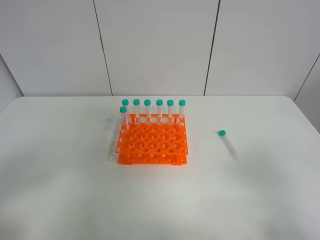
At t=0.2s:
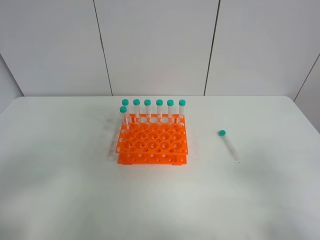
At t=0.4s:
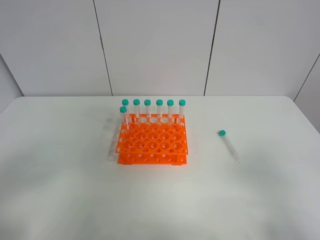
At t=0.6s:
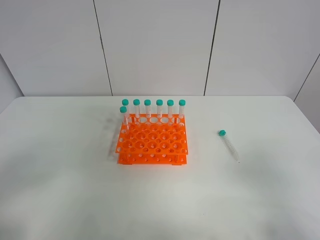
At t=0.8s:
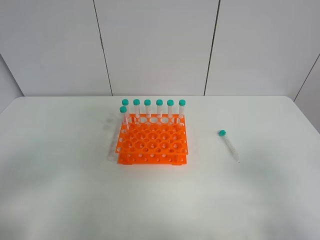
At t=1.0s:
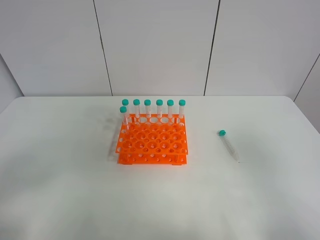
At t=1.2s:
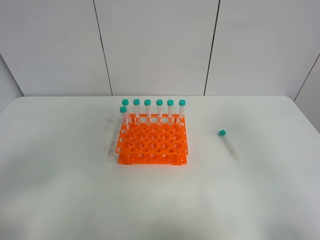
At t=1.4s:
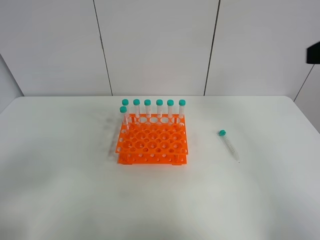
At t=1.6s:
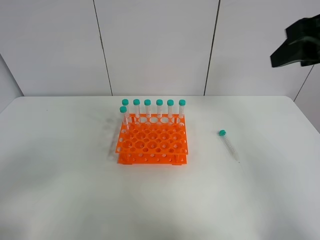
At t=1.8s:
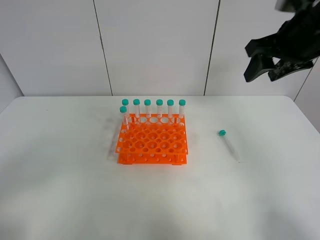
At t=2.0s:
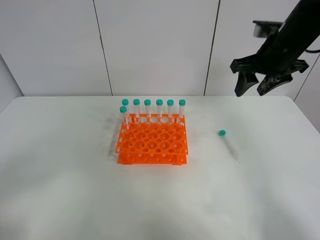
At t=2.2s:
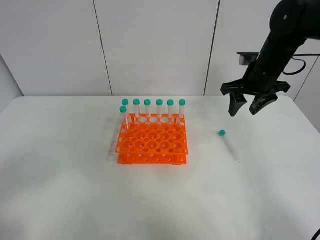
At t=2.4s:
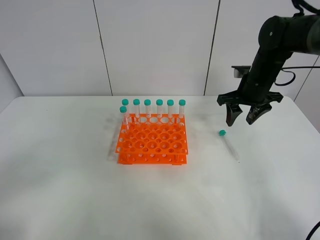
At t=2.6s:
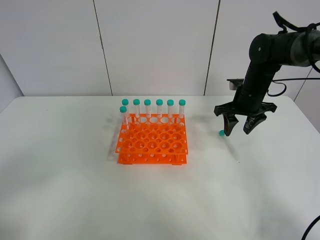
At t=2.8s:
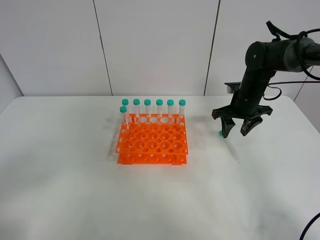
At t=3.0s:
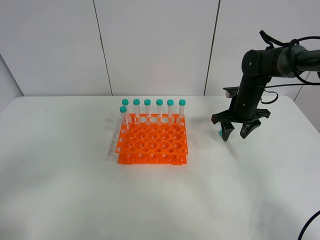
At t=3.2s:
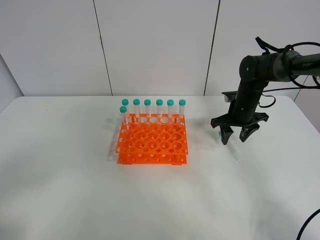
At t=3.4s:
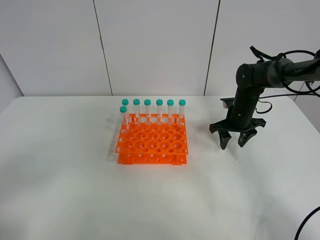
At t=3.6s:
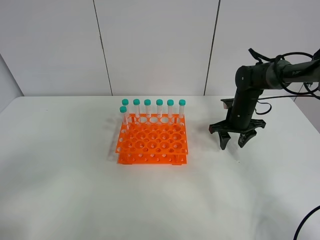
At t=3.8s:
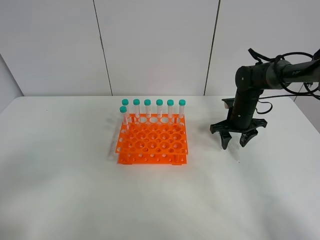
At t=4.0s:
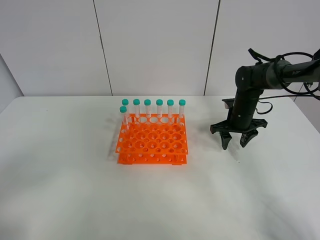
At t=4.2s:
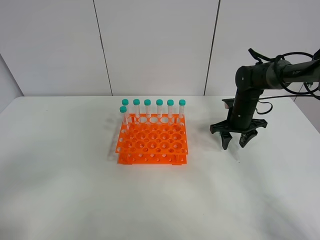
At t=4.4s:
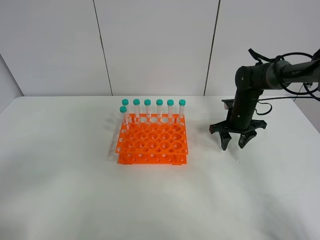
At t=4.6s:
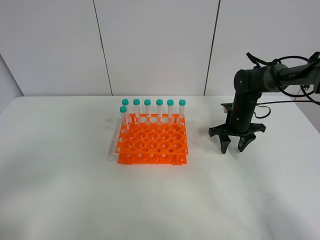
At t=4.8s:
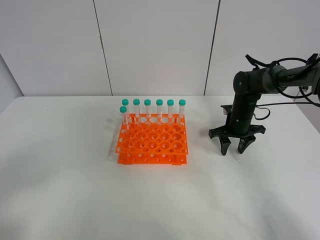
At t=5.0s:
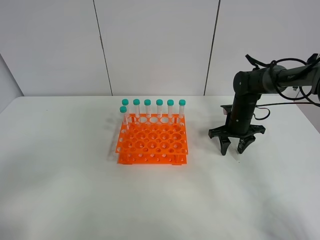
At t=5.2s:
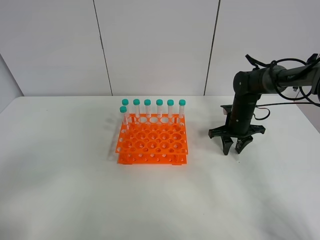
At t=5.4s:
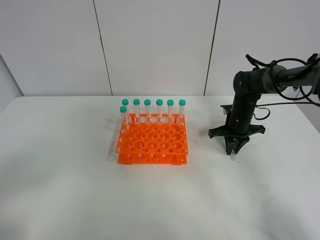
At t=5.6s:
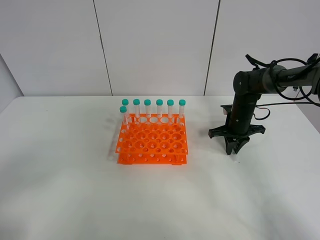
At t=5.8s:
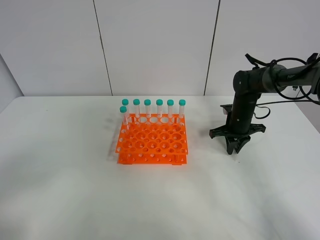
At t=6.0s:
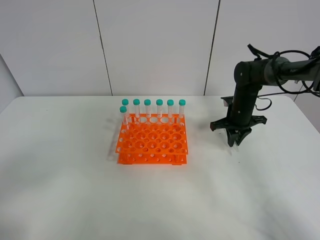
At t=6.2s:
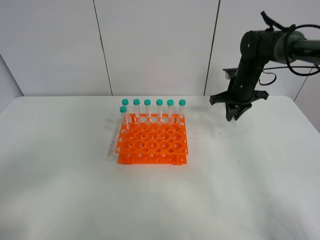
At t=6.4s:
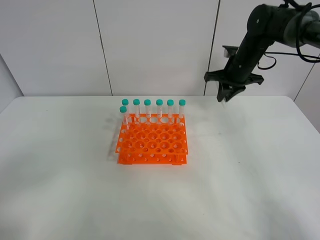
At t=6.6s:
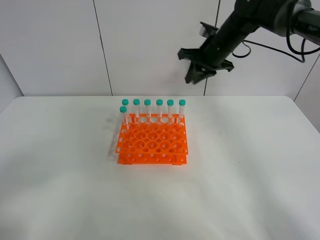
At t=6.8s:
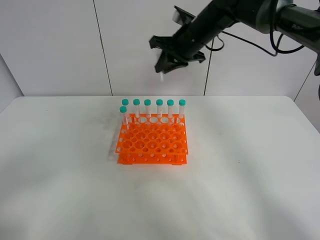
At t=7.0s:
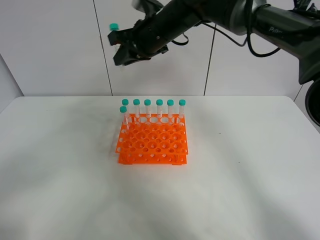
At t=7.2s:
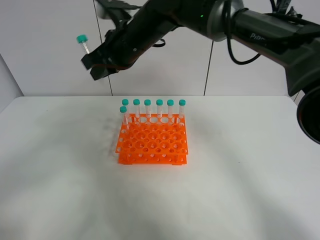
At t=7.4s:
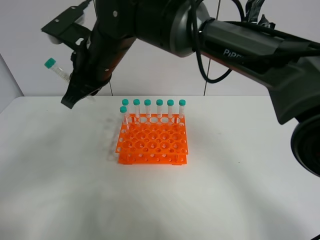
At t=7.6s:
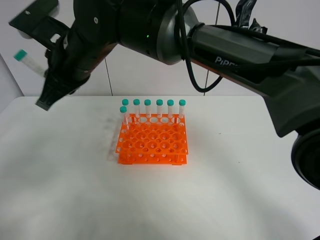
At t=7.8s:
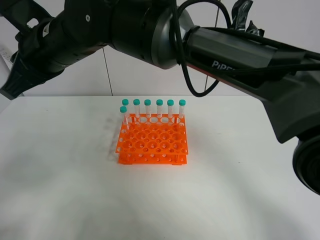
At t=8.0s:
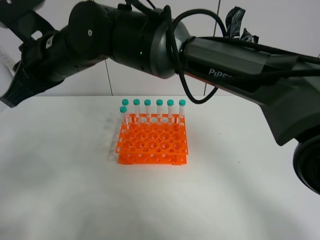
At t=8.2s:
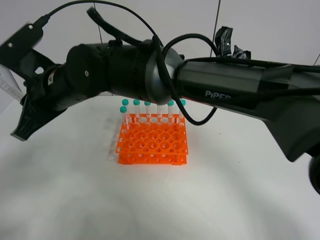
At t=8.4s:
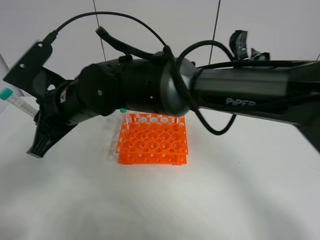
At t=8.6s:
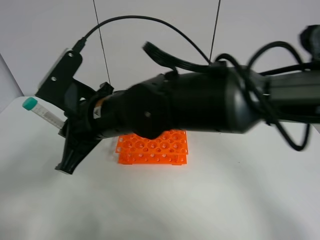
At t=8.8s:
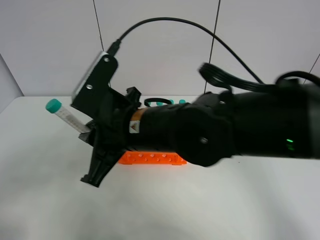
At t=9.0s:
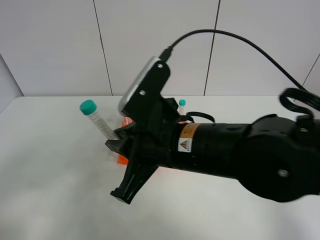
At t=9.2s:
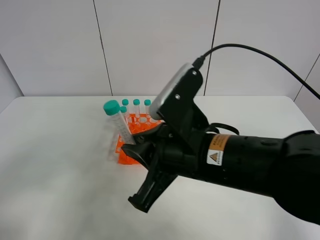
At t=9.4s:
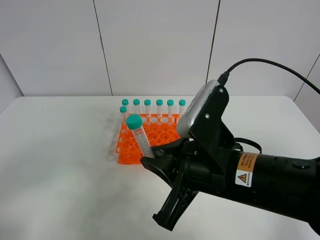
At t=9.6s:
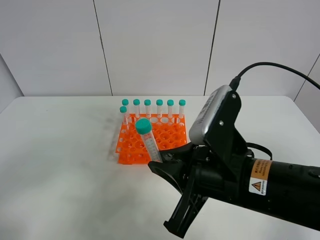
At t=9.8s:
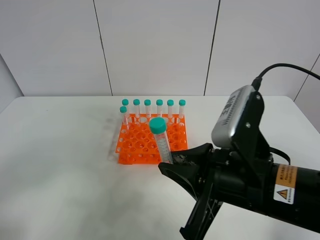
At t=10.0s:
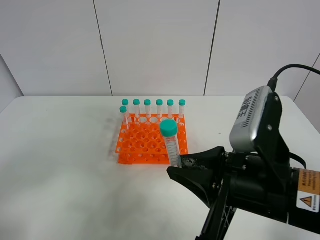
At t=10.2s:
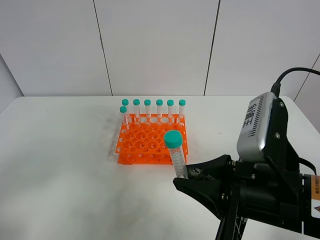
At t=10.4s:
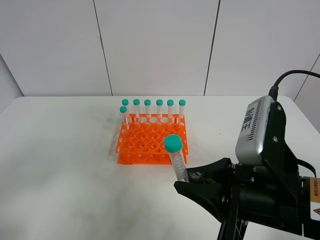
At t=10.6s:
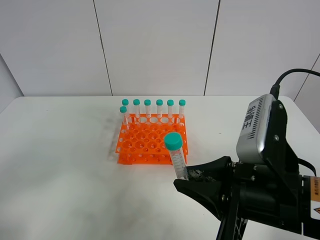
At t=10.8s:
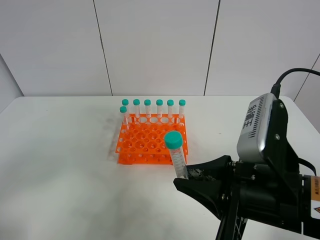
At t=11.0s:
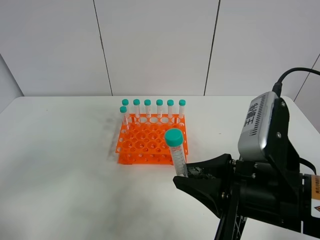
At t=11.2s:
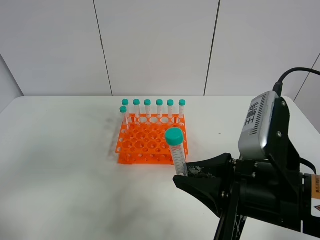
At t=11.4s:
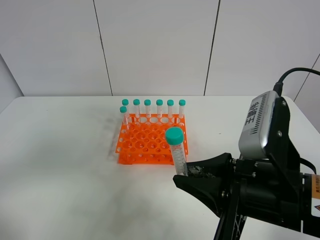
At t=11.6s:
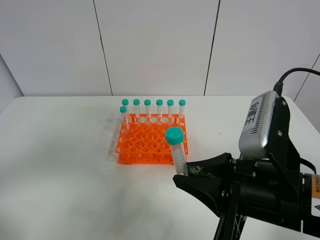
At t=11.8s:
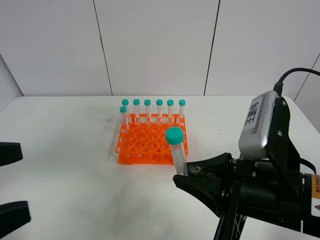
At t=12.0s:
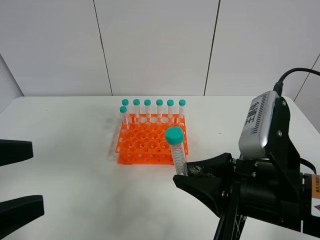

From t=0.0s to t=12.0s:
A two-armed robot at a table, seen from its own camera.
Task of the whole recording: Put the test tube on the table back onto the test tube rack.
Step, from t=0.0s to t=6.4s: Pick up the test tube with the right gripper.
From t=0.0s to t=1.6s: The right gripper heads forward and upward, covering some 25 cm.
From t=1.6s to t=3.0s: The right gripper heads downward and forward, covering roughly 30 cm.
From t=3.0s to t=4.4s: There are only small adjustments of the grippers.
From t=4.4s to t=6.0s: The right gripper closes its fingers.
From t=6.0s to t=7.6s: The right gripper travels to the left and upward by about 40 cm.
From t=7.6s to t=9.0s: The right gripper shifts roughly 20 cm to the right and backward.
From t=9.0s to t=10.4s: The right gripper is displaced to the right and backward by some 10 cm.
From t=10.4s to t=12.0s: The left gripper goes about 10 cm to the right and forward.

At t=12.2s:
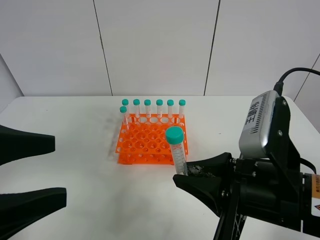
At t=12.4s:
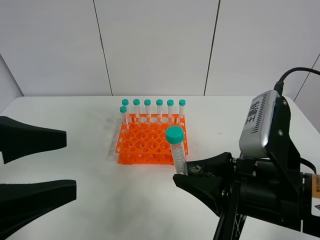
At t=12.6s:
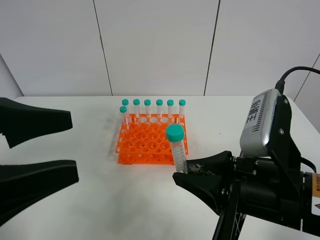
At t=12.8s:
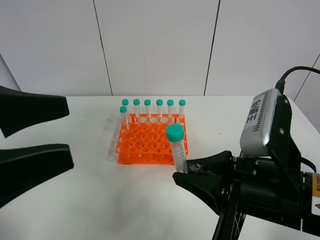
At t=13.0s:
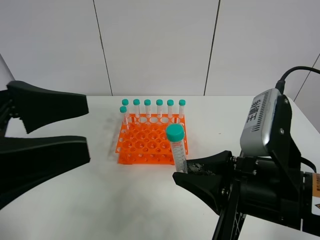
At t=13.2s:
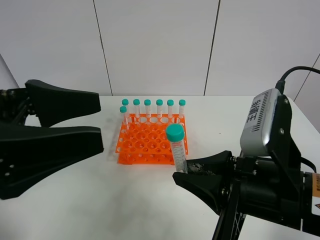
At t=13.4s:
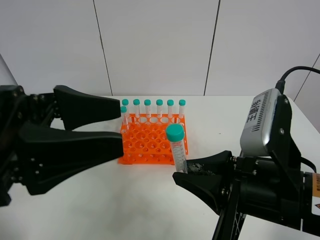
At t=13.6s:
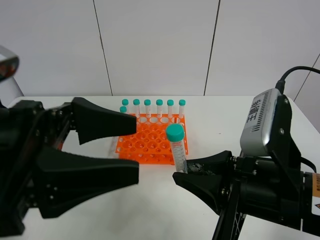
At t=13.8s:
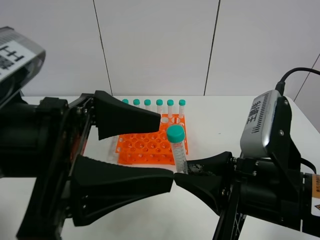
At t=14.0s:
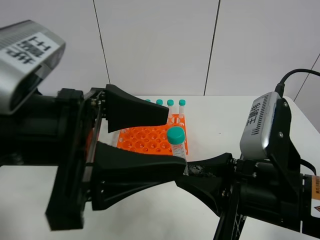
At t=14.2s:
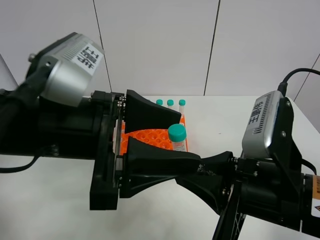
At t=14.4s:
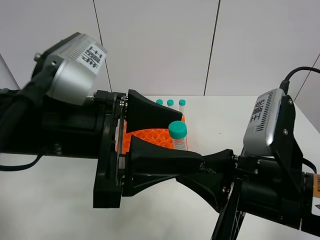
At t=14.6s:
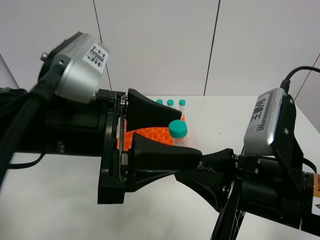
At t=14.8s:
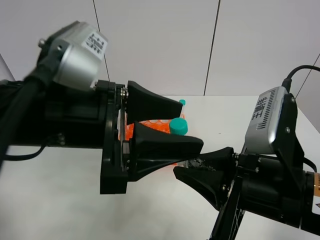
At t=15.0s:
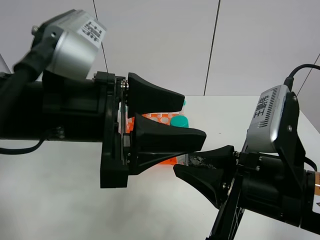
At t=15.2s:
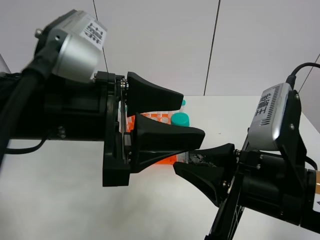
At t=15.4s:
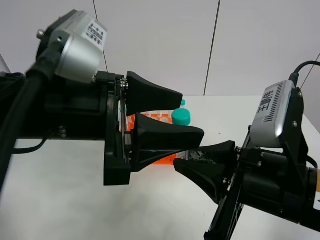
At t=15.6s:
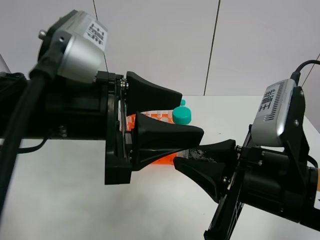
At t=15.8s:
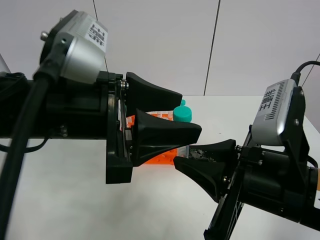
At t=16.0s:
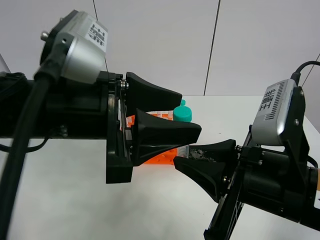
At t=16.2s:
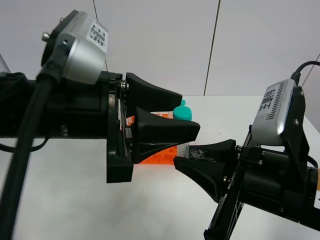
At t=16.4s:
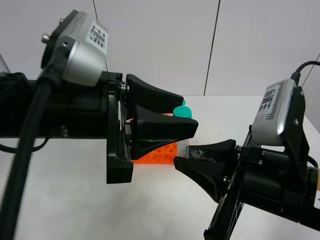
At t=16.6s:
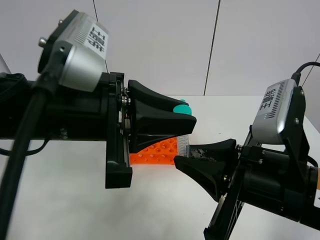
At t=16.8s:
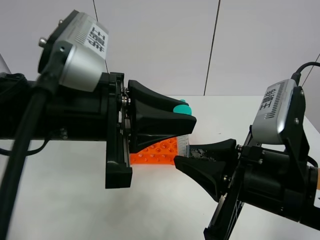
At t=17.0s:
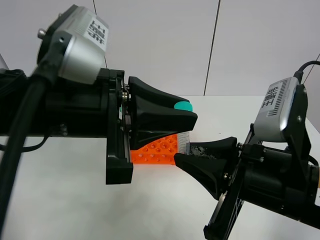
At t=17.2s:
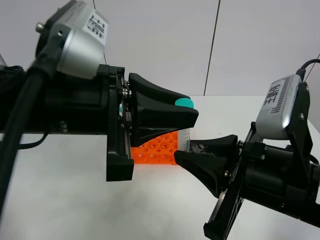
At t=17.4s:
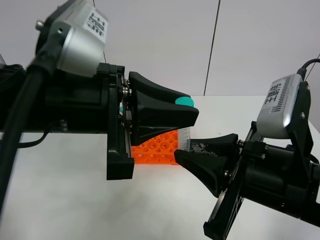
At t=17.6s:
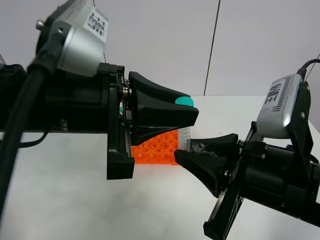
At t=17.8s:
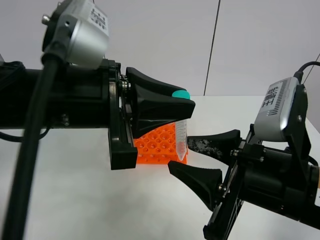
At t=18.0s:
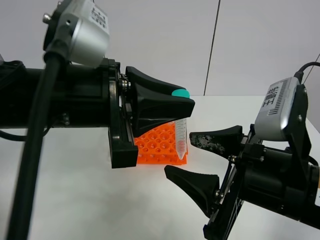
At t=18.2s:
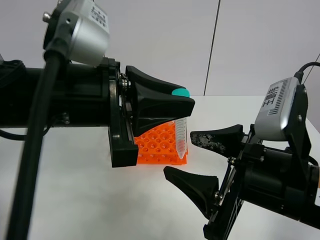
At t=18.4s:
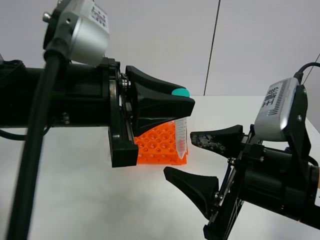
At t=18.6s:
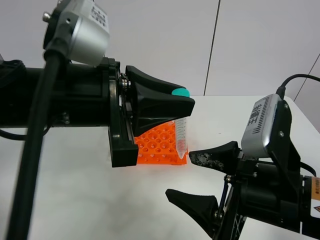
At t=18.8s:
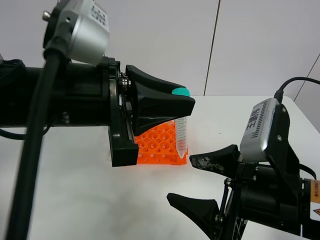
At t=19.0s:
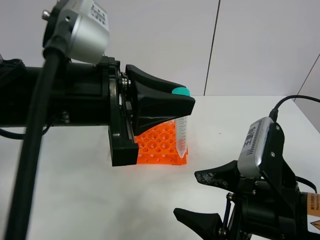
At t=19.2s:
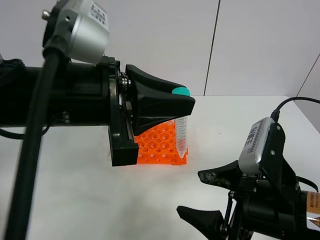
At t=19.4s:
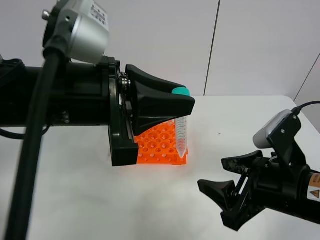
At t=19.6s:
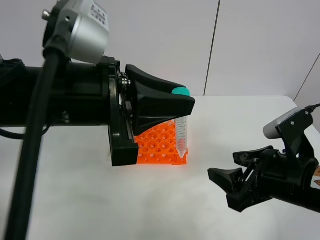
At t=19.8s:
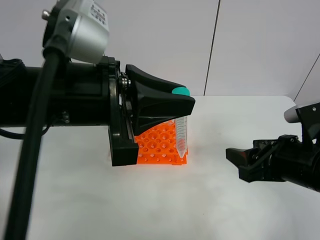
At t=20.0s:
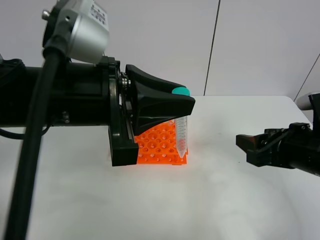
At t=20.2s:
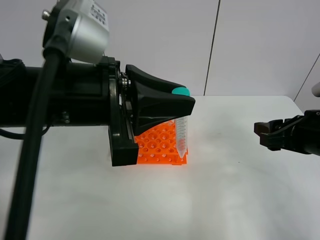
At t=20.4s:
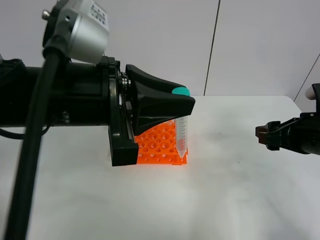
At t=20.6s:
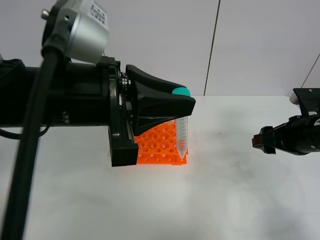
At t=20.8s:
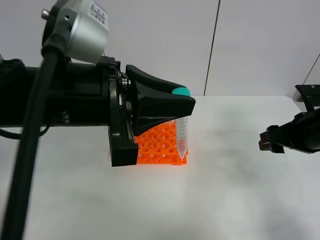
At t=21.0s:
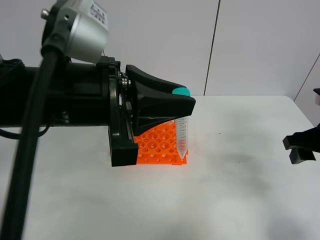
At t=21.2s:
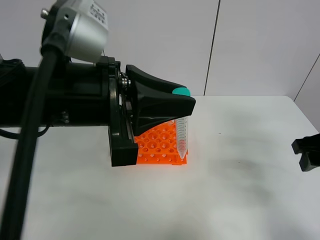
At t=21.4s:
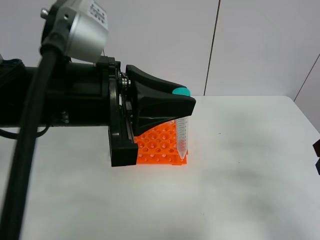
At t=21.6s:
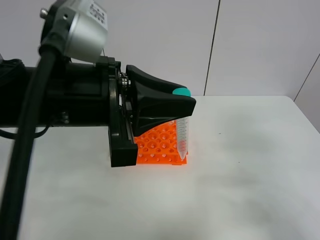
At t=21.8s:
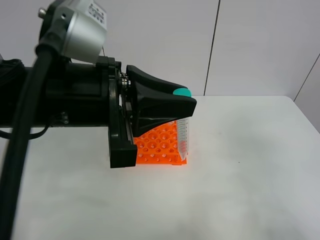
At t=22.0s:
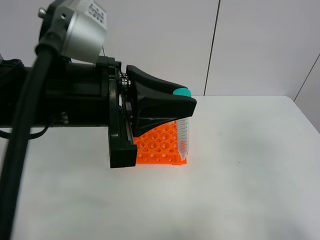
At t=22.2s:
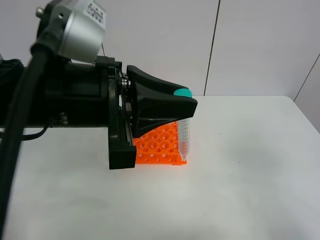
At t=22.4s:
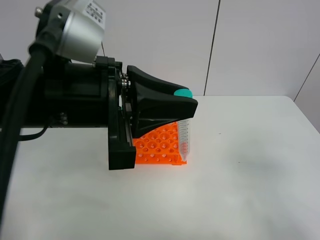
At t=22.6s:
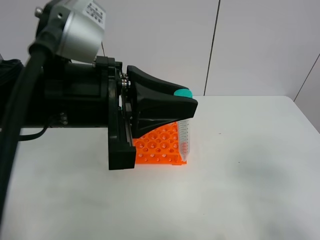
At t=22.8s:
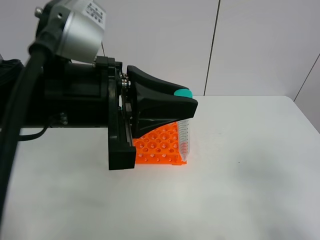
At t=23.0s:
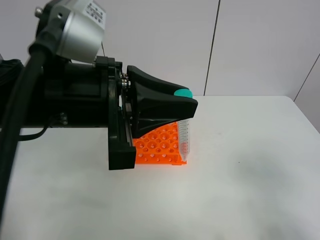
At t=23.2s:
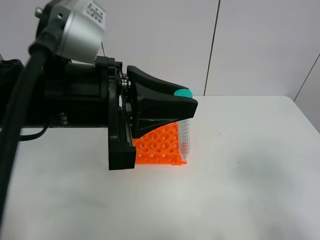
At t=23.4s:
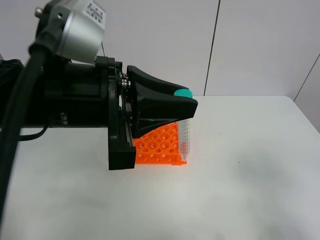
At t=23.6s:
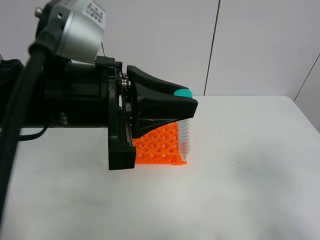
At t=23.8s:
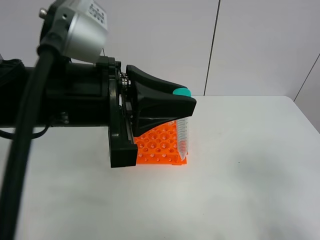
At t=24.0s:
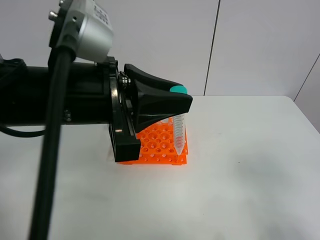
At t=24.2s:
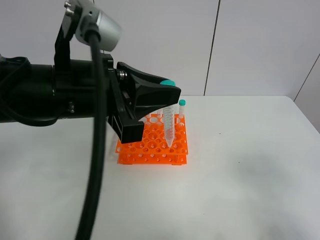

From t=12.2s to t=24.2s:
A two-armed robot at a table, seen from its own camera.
Task of the whole recording: Put the test tube on the table back onto the test tube rack.
Step, from t=12.2s to t=19.0s: Move the test tube from the right gripper to the left gripper.
From t=12.2s to t=13.8s: The left gripper heads to the right, covering approximately 10 cm.
From t=15.2s to t=16.6s: The left gripper closes up.
From t=16.6s to t=18.2s: The right gripper opens up.
From t=18.2s to t=19.8s: The right gripper shifts approximately 10 cm to the right and forward.
From t=19.8s to t=21.2s: The right gripper is displaced to the right by roughly 10 cm.
From t=21.2s to t=22.6s: The right gripper moves backward, about 20 cm.
From t=22.6s to t=24.2s: The grippers stay close to where they were, moving slightly.
